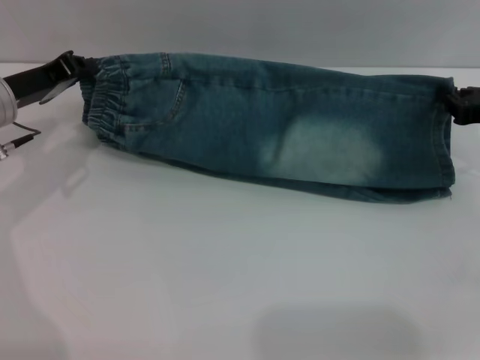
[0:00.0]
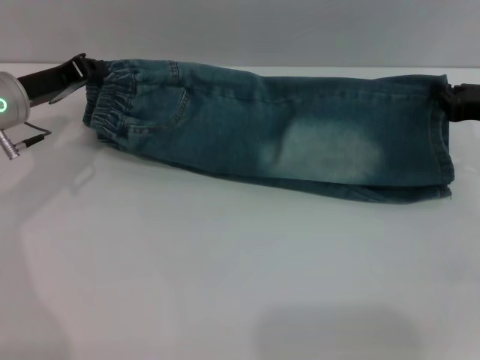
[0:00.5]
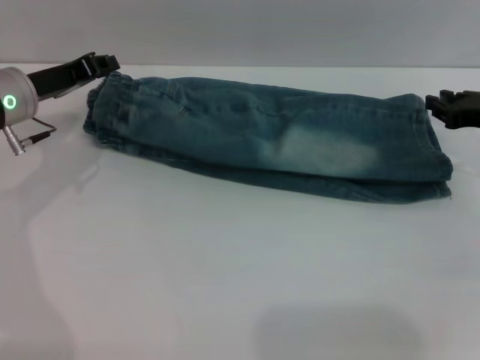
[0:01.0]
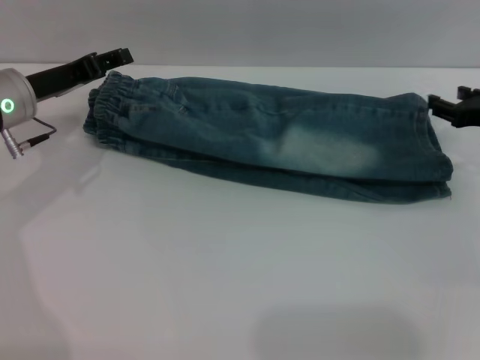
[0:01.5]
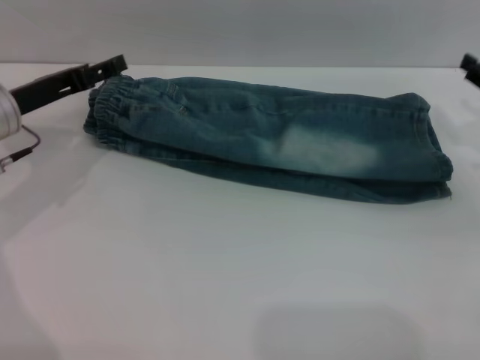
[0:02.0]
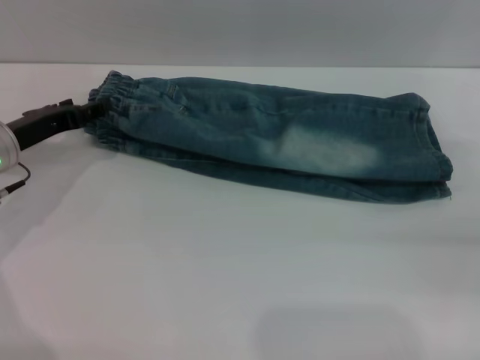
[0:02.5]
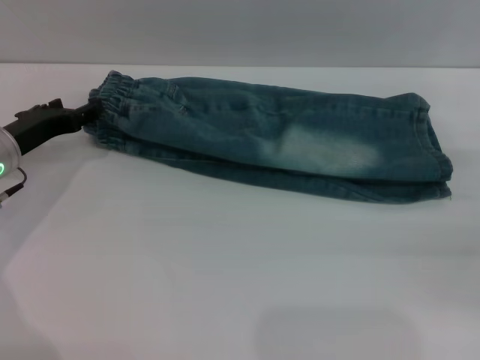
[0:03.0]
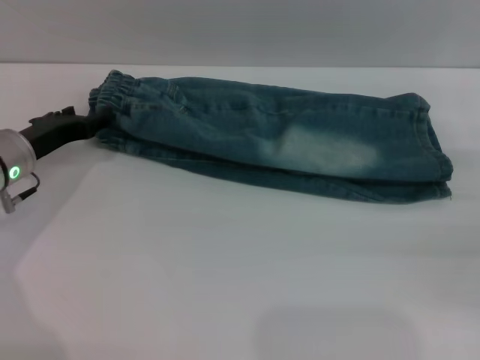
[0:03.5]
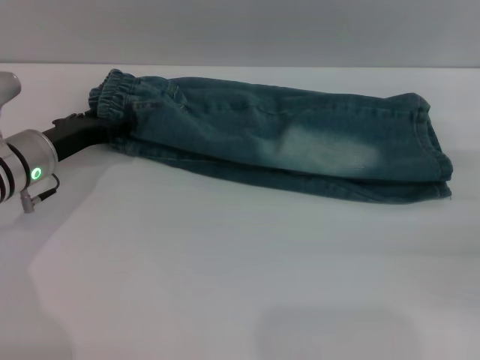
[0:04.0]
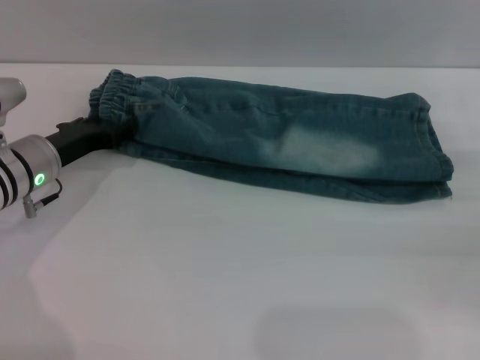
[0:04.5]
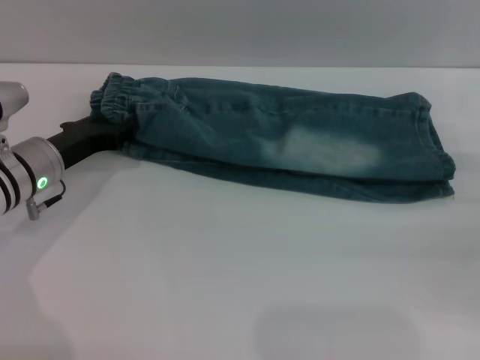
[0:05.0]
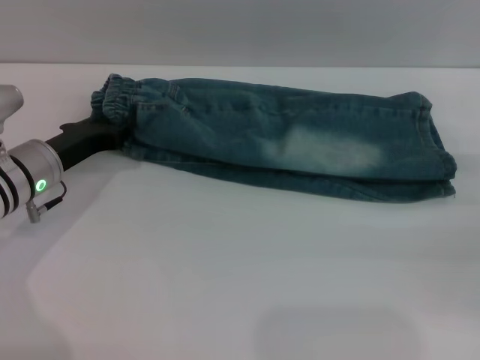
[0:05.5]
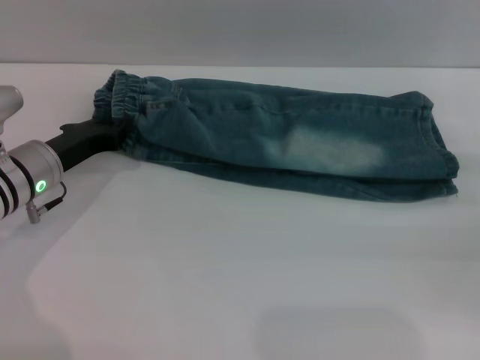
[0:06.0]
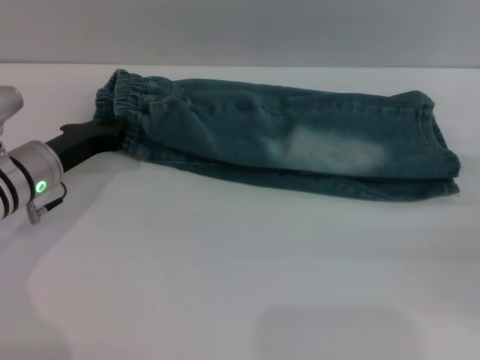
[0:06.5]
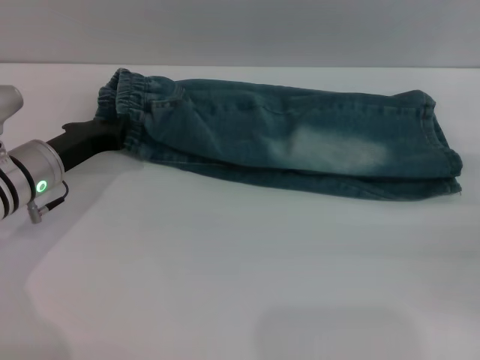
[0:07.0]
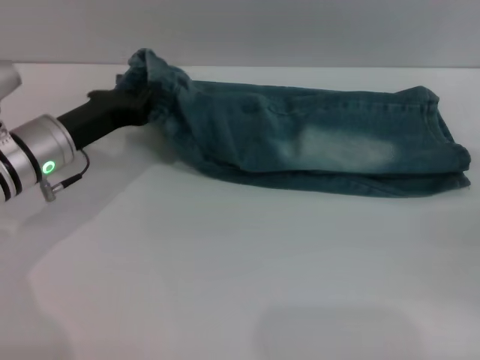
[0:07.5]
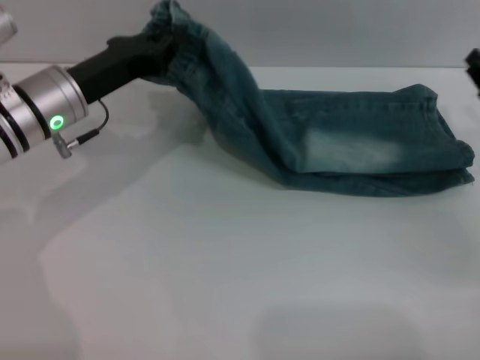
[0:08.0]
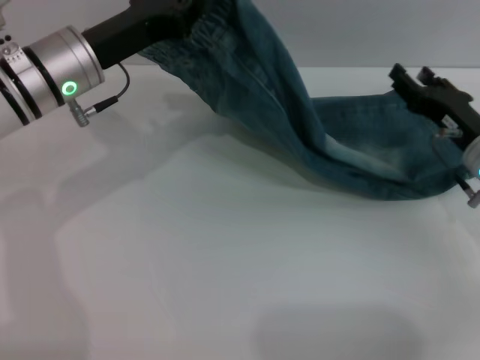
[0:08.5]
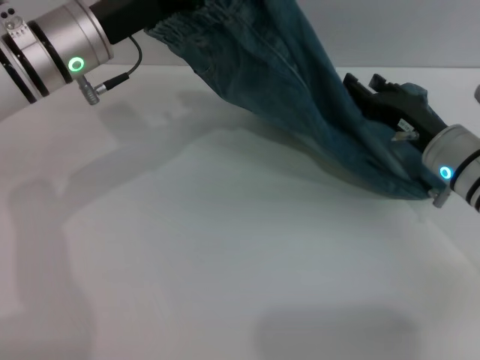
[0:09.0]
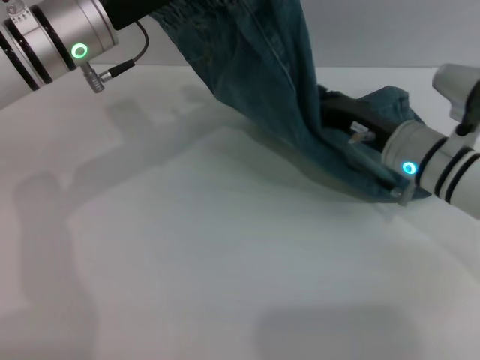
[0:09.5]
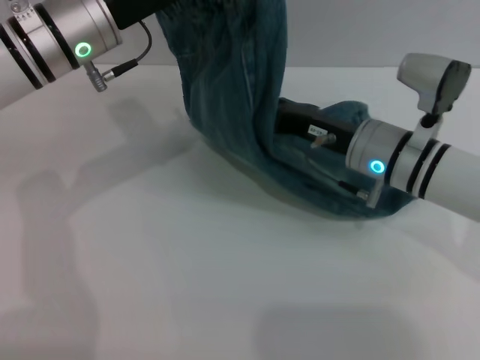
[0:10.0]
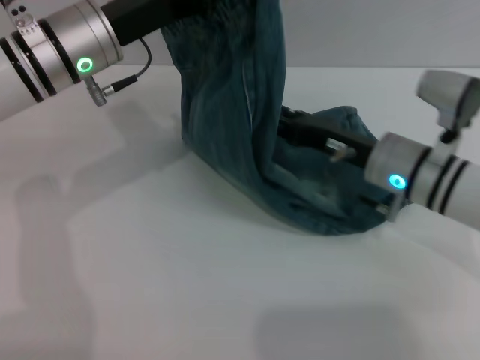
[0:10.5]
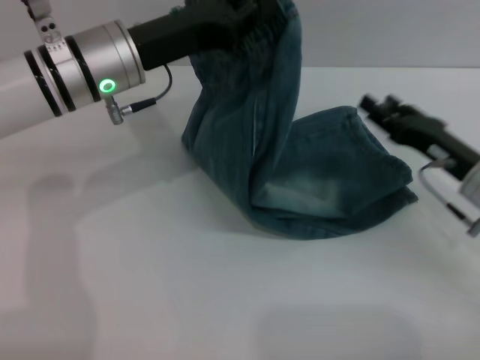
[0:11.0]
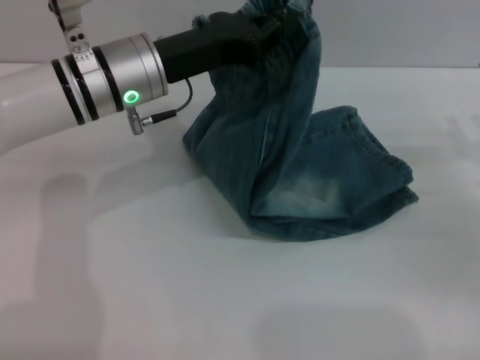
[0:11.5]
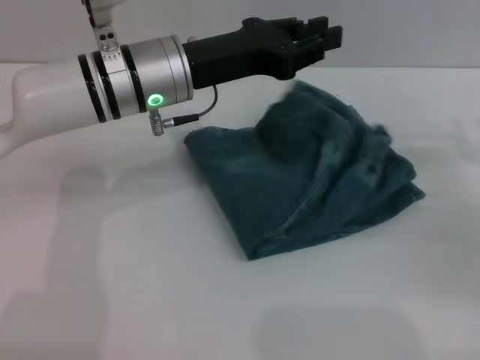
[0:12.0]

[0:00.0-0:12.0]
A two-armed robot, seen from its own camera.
0:00.0 to 0:02.0: The left gripper opens its fingers, while the right gripper opens.
0:02.0 to 0:04.0: The left gripper moves downward, roughly 5 cm.
0:04.0 to 0:06.0: The left gripper closes.
0:06.0 to 0:08.0: The left gripper shifts approximately 5 cm upward; the right gripper moves to the left, some 5 cm.
0:08.0 to 0:10.0: The left gripper heads upward, covering approximately 5 cm. The right gripper moves to the left, some 15 cm.
0:10.0 to 0:12.0: The left gripper shifts approximately 5 cm to the right. Meanwhile the right gripper is displaced to the right by approximately 20 cm.

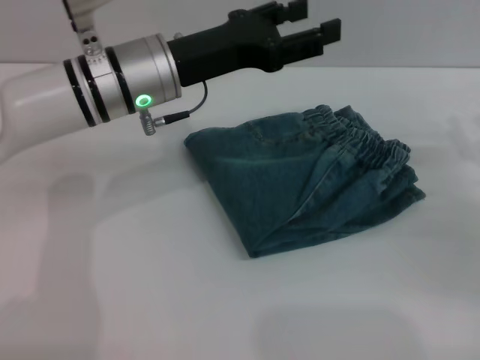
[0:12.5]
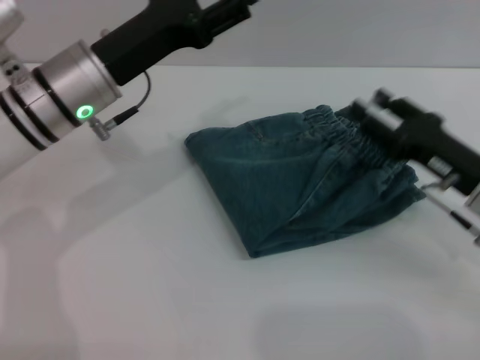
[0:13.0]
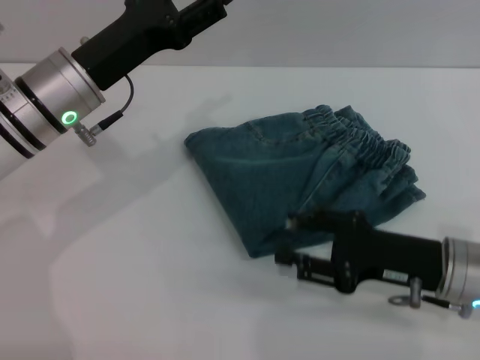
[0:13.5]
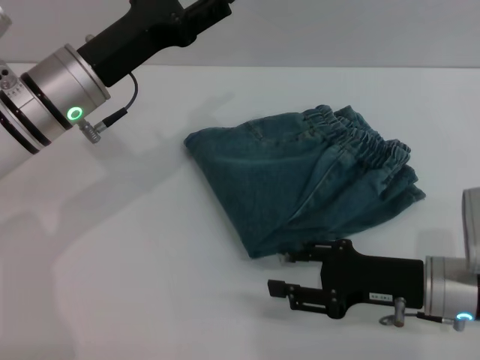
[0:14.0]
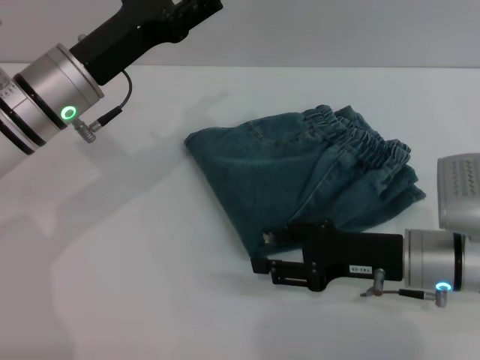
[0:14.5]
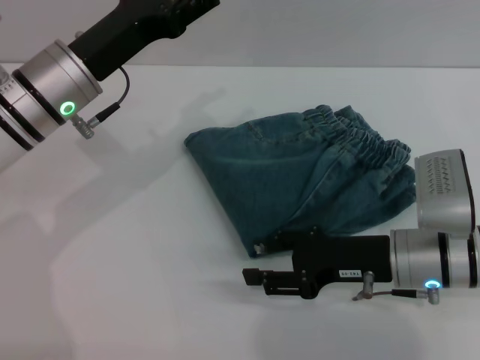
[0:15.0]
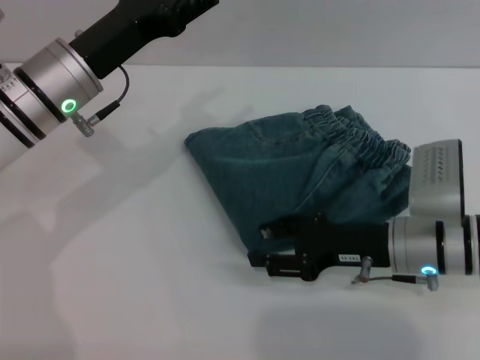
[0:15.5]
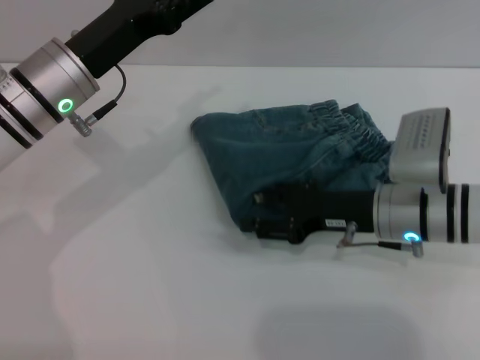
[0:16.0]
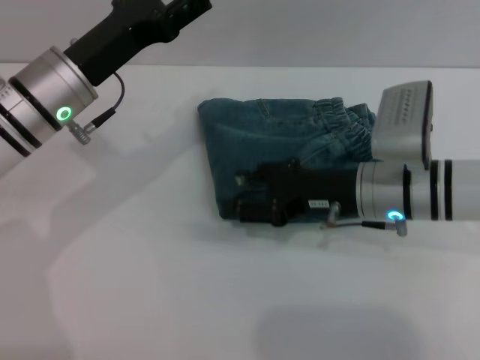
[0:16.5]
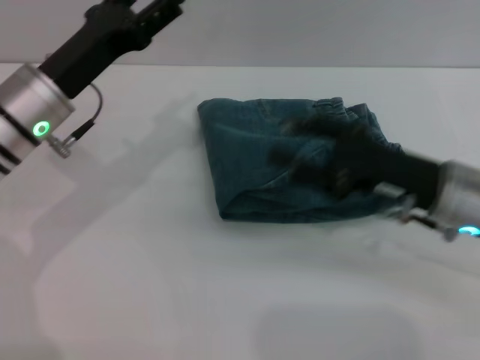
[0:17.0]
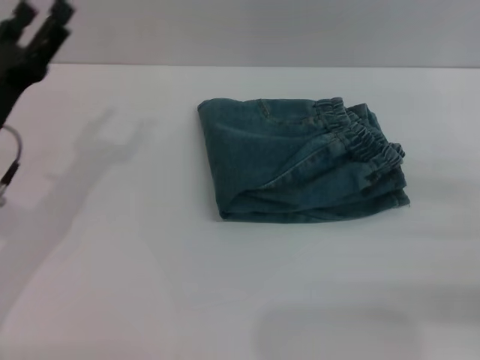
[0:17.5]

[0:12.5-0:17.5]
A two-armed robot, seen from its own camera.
Step, 0:12.5 to 0:16.5: Place the folded trousers onto the center area with the right grippers.
0:12.5 to 0:15.0: The right gripper goes some 15 cm to the left, while the left gripper is displaced to the left by roughly 5 cm, and opens up.
0:15.0 to 0:17.5: The right gripper is displaced to the right by roughly 20 cm. Meanwhile the left gripper moves to the left and backward, roughly 10 cm.

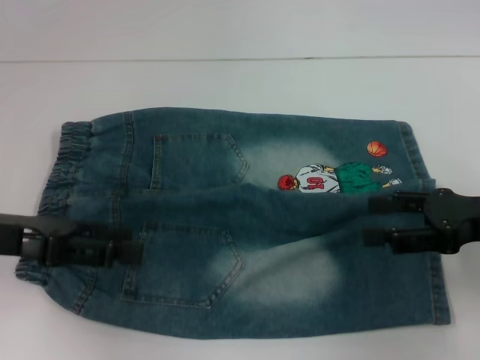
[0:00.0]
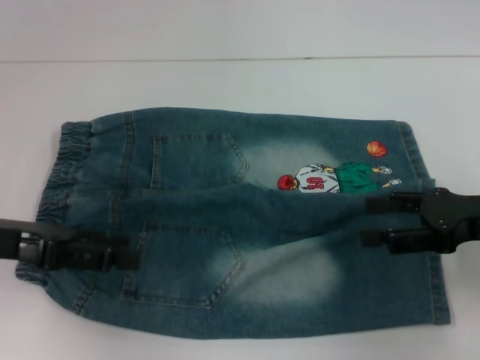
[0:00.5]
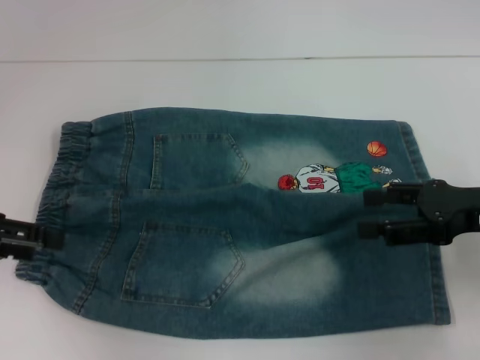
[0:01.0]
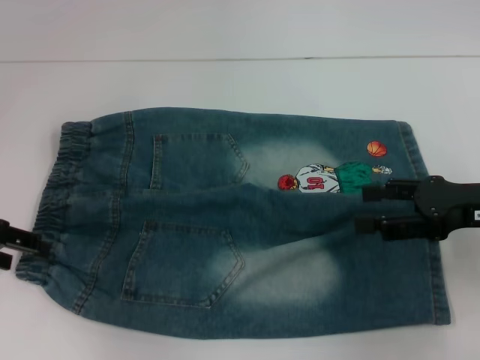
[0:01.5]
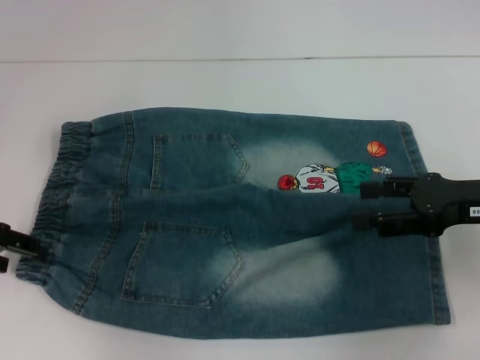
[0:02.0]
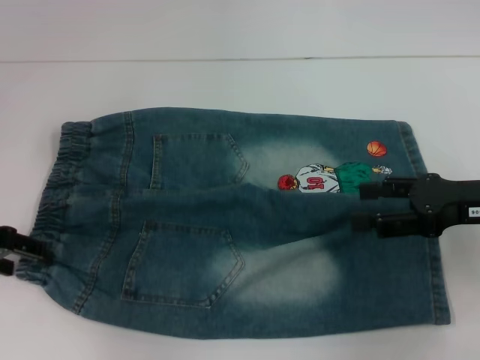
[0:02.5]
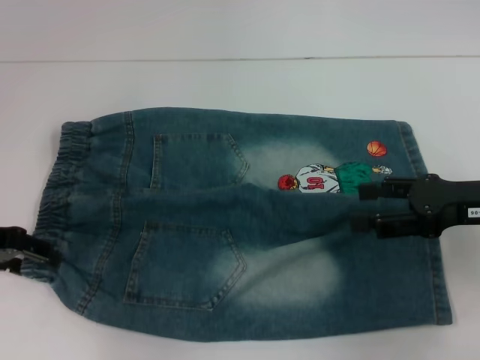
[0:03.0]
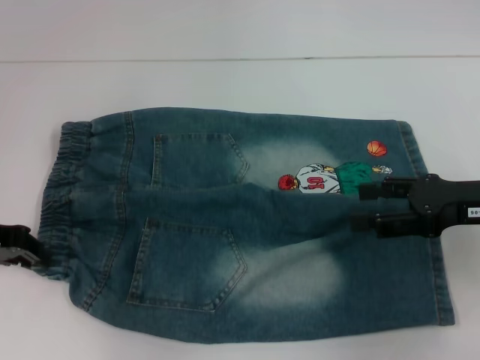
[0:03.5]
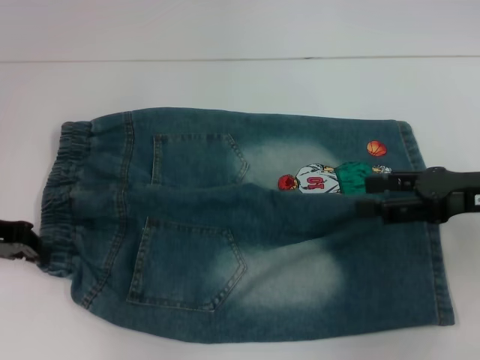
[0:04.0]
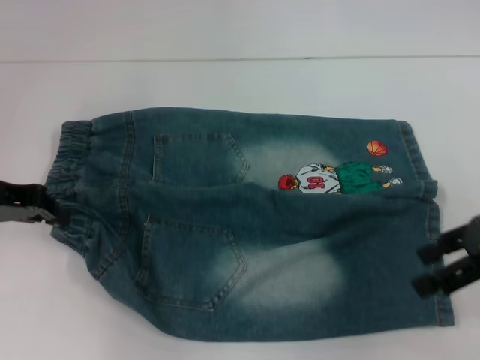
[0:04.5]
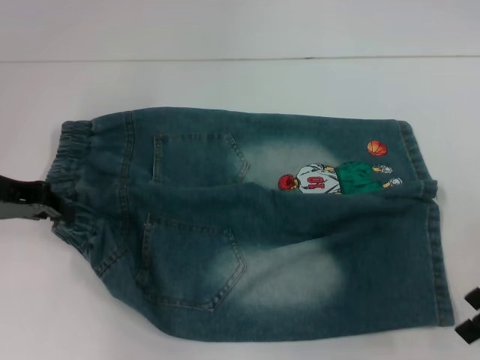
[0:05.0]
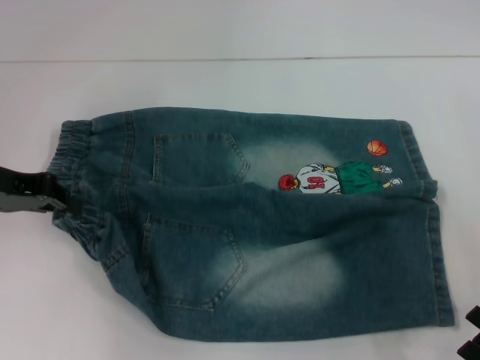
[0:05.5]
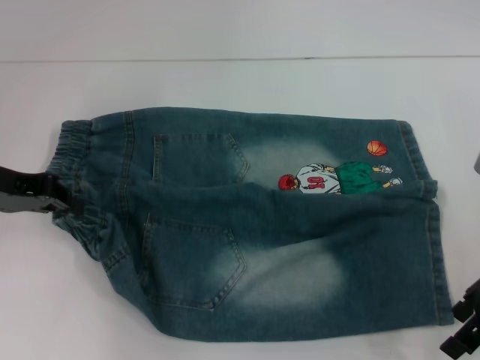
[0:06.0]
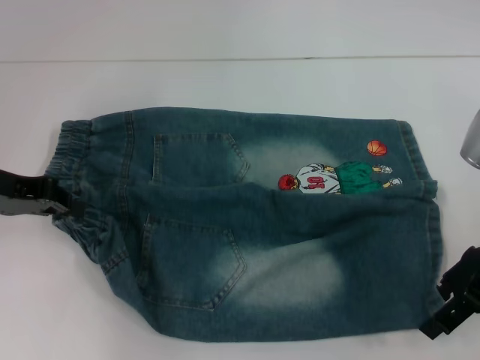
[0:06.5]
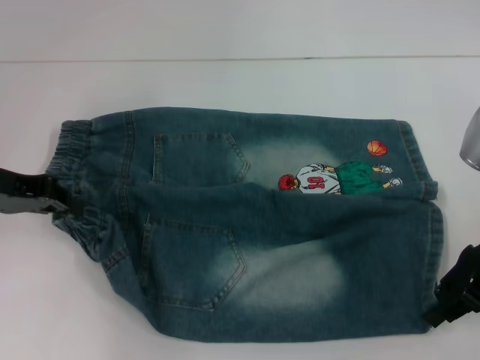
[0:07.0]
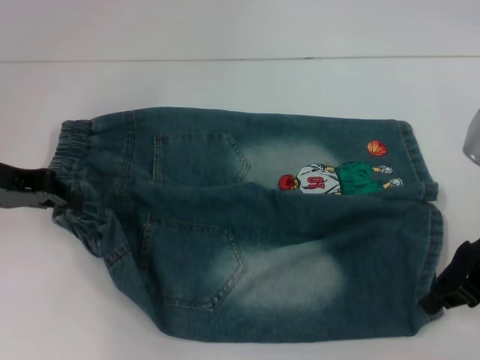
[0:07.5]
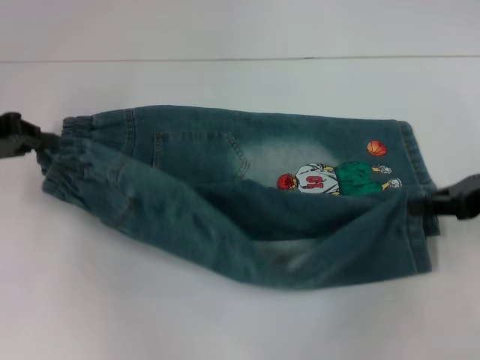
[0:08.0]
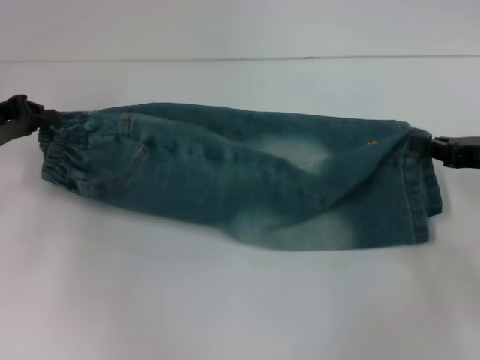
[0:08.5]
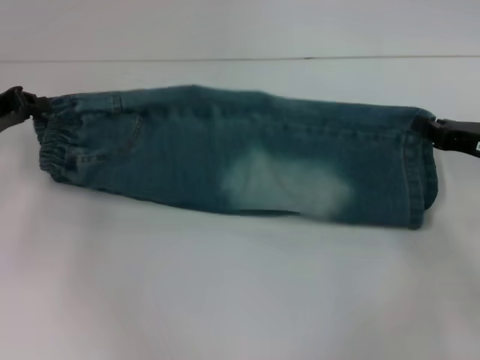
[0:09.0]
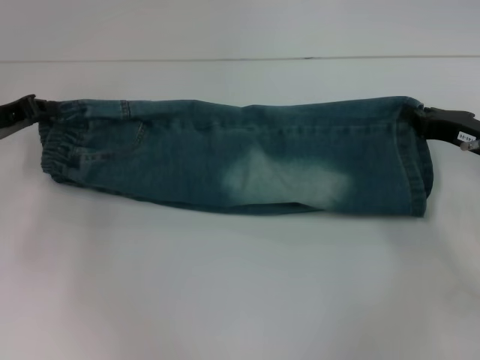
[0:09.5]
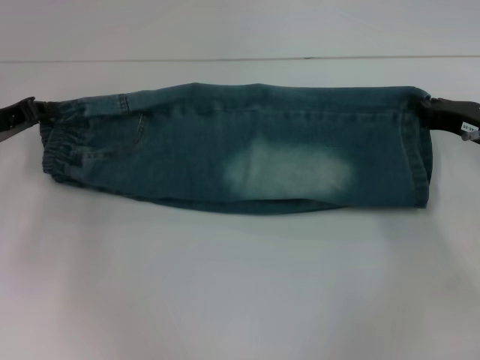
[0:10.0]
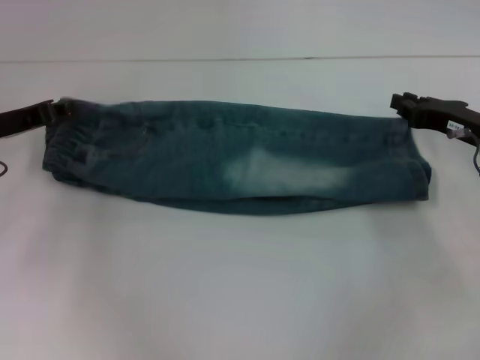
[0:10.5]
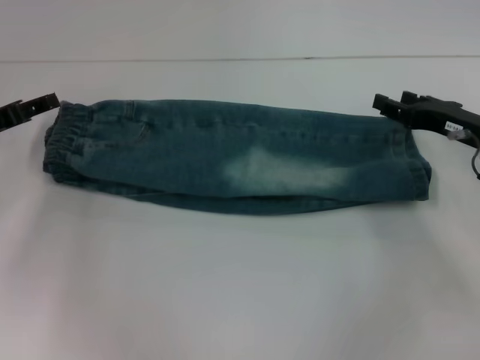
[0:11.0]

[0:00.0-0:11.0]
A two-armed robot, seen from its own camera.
Step, 0:00.0 to 0:03.5: Hold the lower left waistband with your left hand.
Step, 0:04.0 to 0:07.0: Grab the lower right pant leg with your right hand.
Step, 0:07.5 to 0:10.5: Fold upward with your right hand.
0:00.0 to 0:02.0: The left gripper moves roughly 5 cm.
0:02.0 to 0:03.5: The left gripper closes its fingers.
0:05.5 to 0:07.5: The right gripper closes.
0:07.5 to 0:09.0: The right gripper heads downward and to the right, covering about 10 cm.
0:09.0 to 0:11.0: The right gripper opens its fingers; the left gripper opens its fingers.
